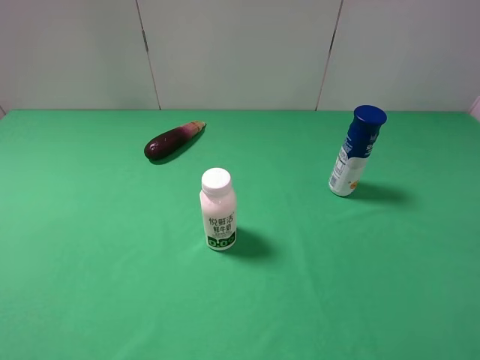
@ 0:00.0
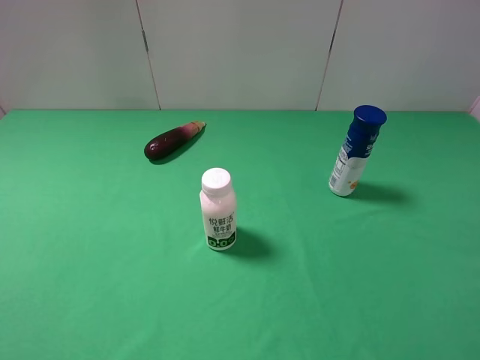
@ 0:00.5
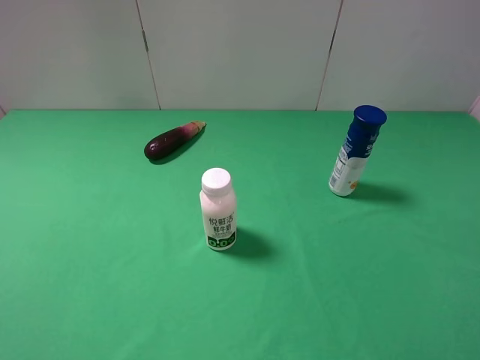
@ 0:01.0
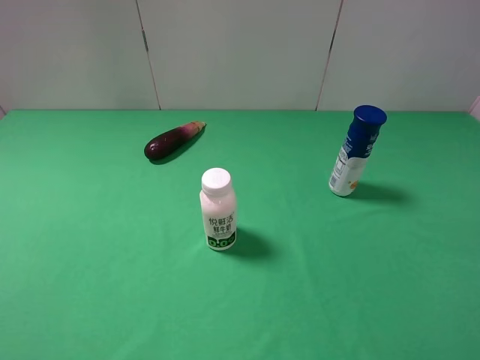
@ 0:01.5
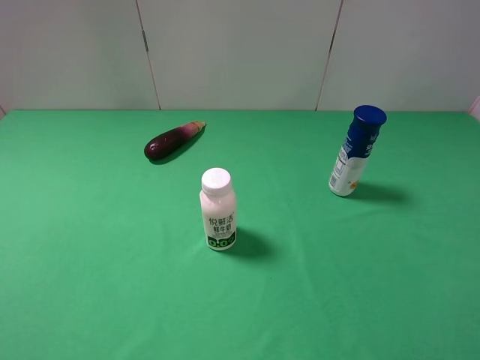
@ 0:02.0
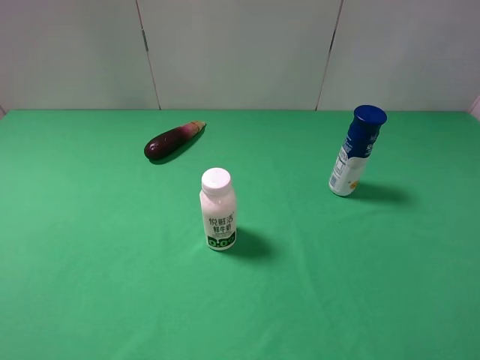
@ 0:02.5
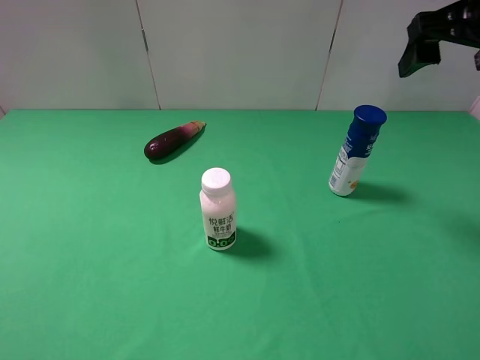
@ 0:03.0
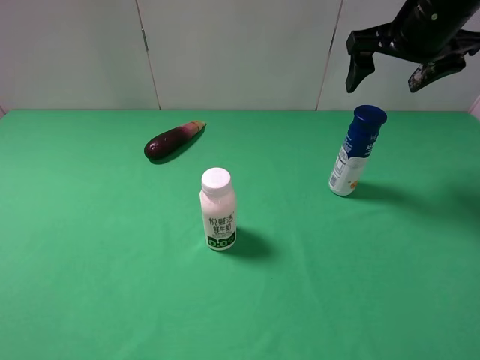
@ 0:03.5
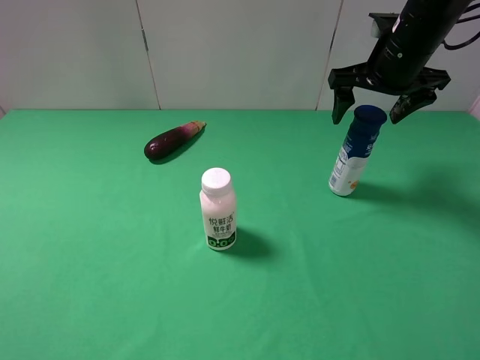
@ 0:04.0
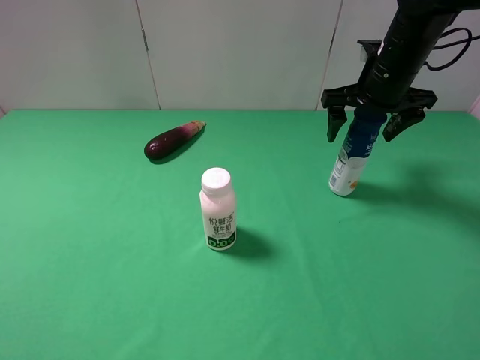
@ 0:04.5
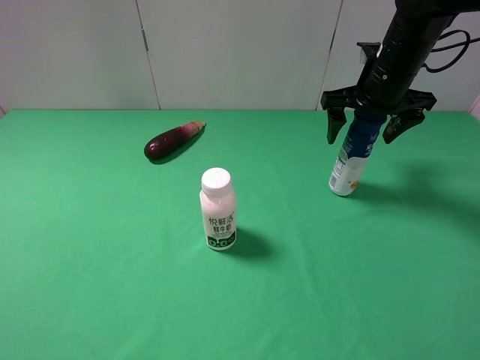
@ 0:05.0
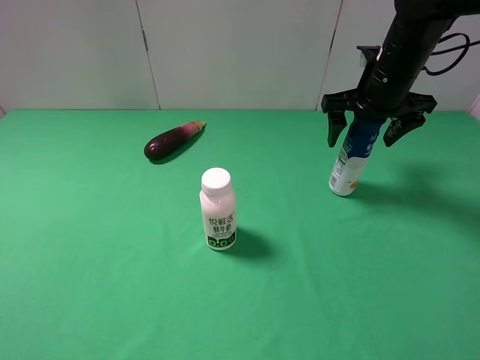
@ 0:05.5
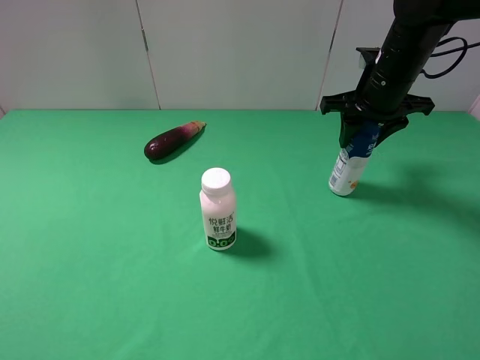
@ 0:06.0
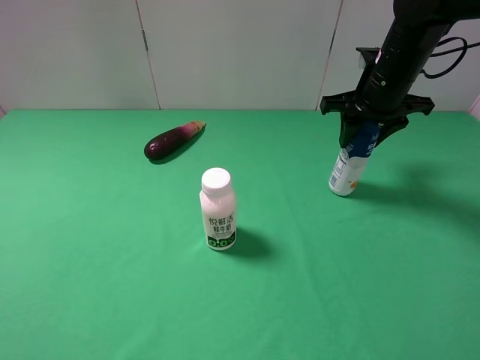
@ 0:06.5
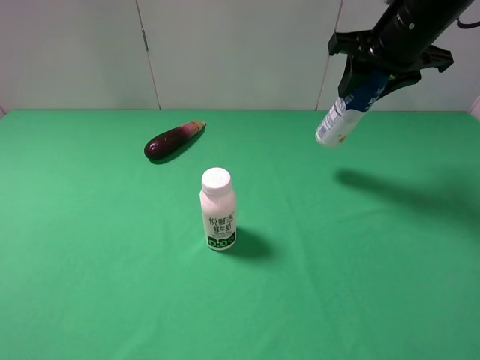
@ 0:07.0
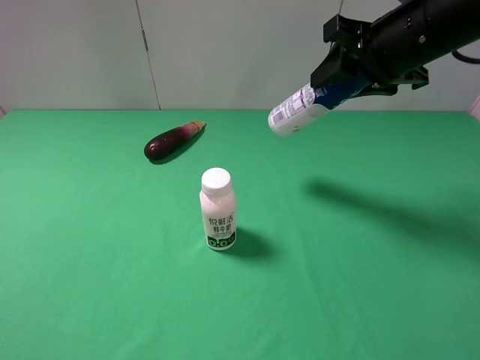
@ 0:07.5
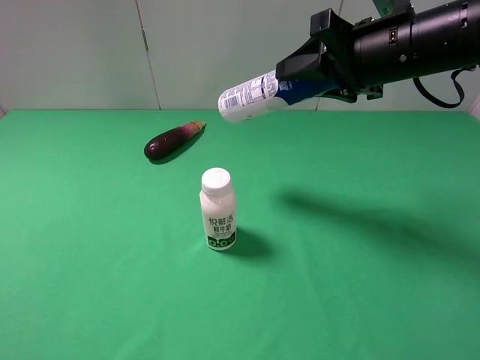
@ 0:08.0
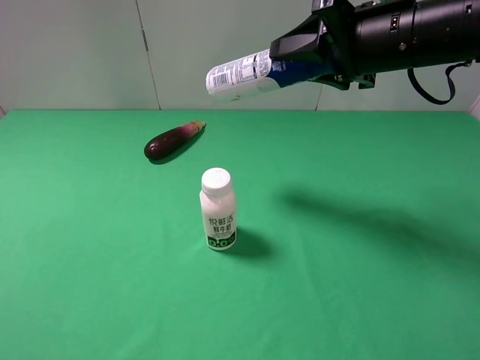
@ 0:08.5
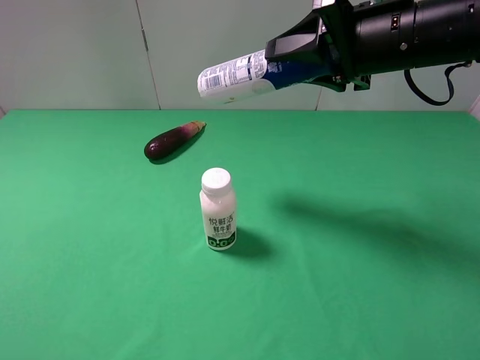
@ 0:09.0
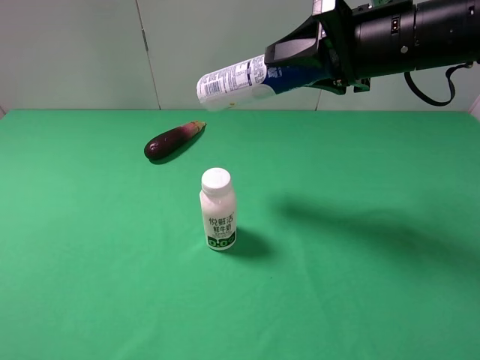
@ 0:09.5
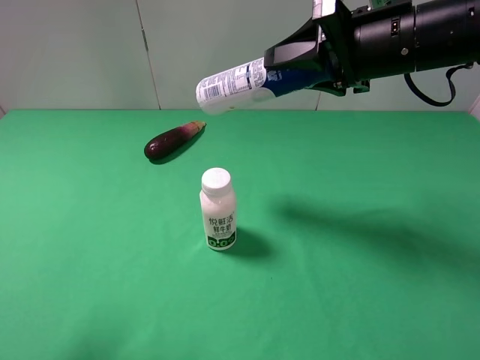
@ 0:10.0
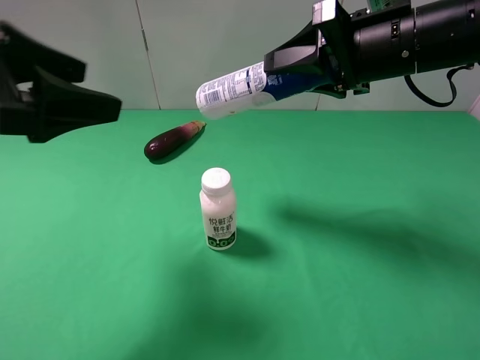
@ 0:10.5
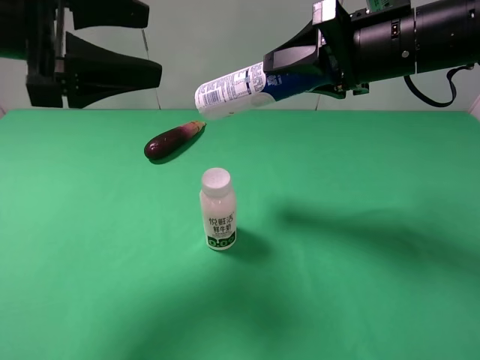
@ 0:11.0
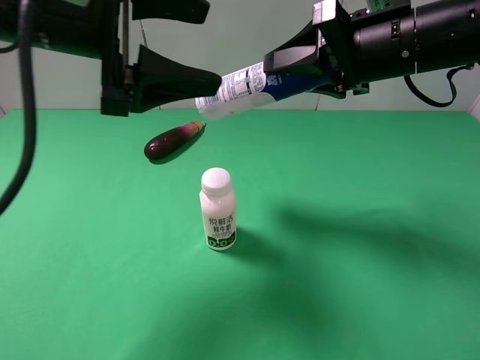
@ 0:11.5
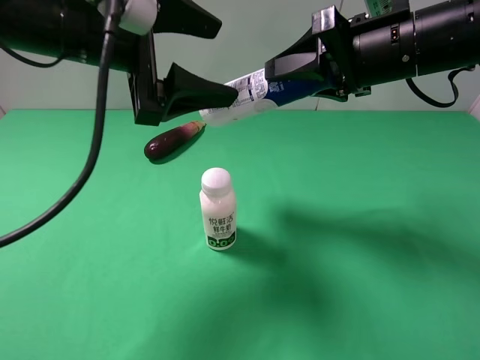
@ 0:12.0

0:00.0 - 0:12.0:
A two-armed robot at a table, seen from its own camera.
Task of the whole recording: use the right gripper to pick up the item and transfer it from the right gripper to the left gripper.
Step, 0:00.0 - 0:06.0: Use the right gripper to grab the yogurt on the right side of the table.
0:02.0 - 0:04.0: The right gripper is displaced forward by approximately 35 cm.
0:04.0 - 0:06.0: The right gripper closes up.
0:06.0 - 0:08.0: The right gripper travels backward and upward by roughly 10 cm.
0:08.0 - 0:10.0: The left gripper is displaced forward by roughly 10 cm.
0:10.0 - 0:12.0: The left gripper travels forward and to the right by approximately 25 cm.

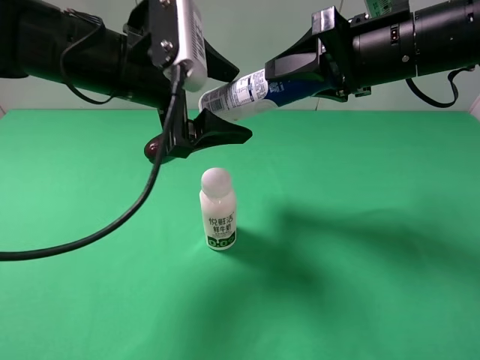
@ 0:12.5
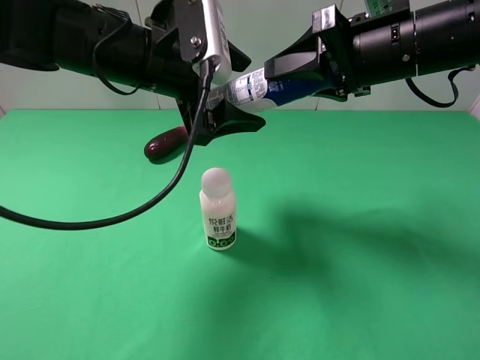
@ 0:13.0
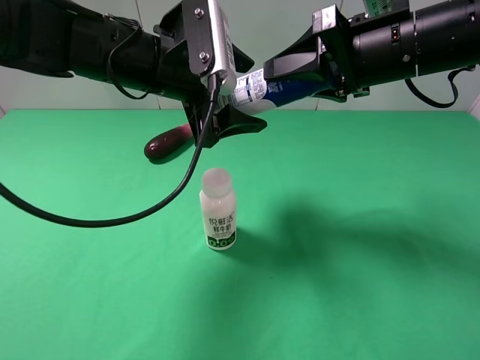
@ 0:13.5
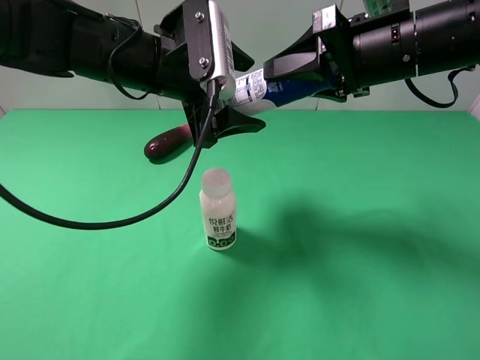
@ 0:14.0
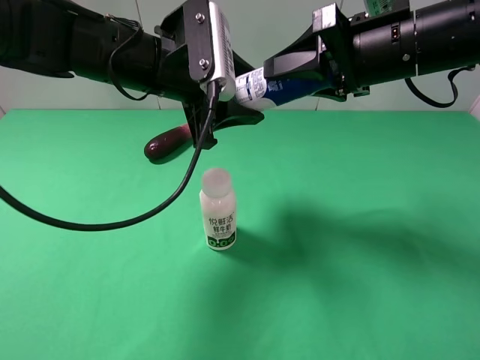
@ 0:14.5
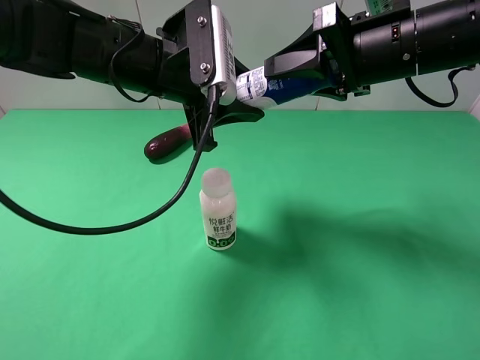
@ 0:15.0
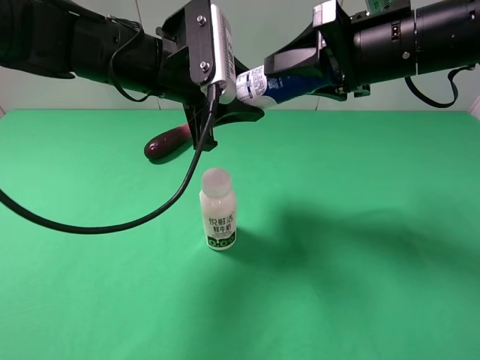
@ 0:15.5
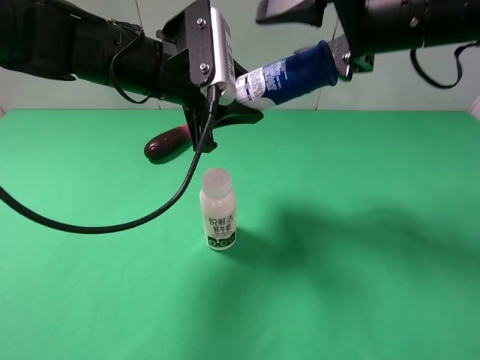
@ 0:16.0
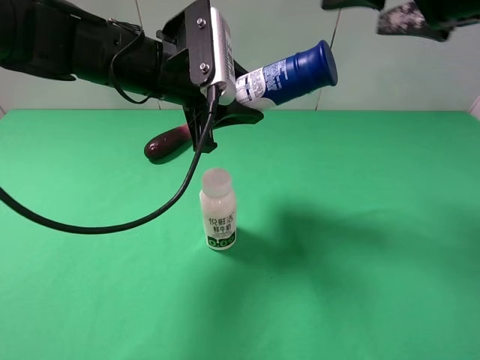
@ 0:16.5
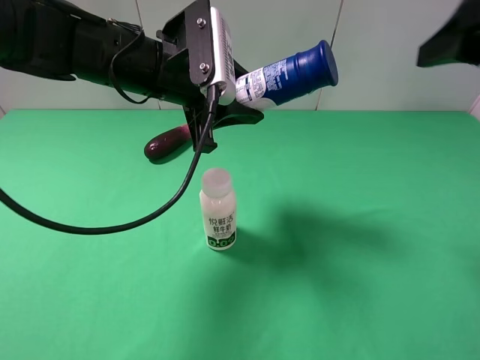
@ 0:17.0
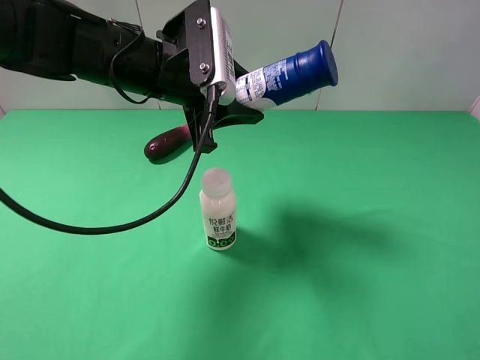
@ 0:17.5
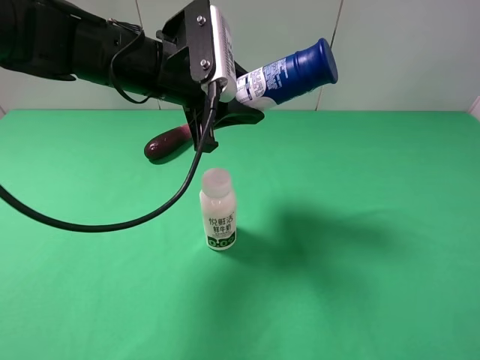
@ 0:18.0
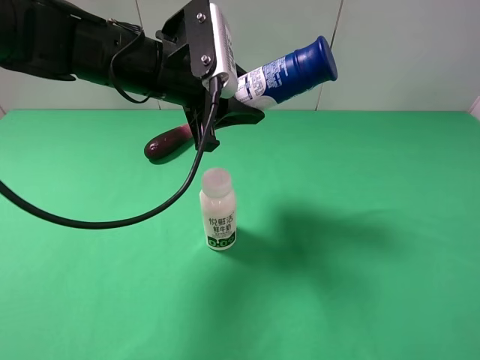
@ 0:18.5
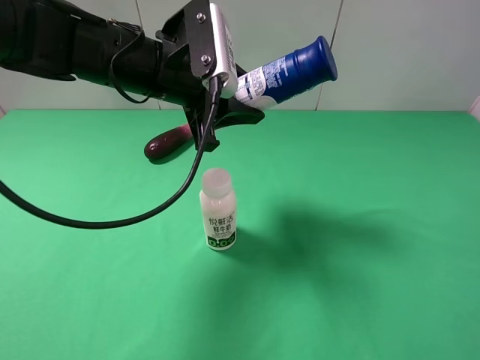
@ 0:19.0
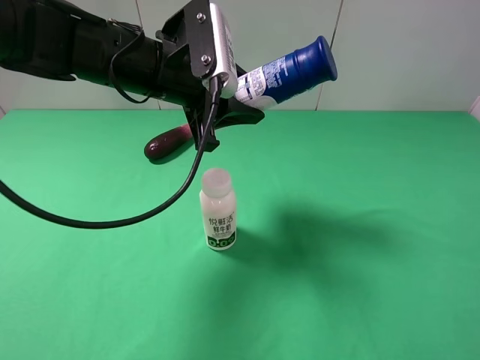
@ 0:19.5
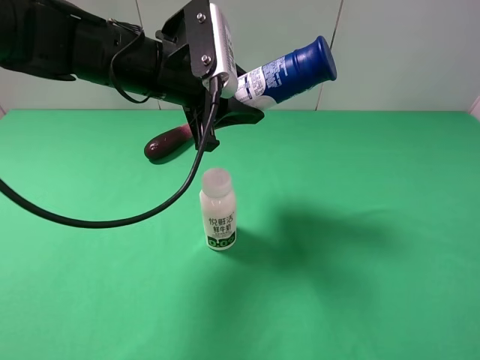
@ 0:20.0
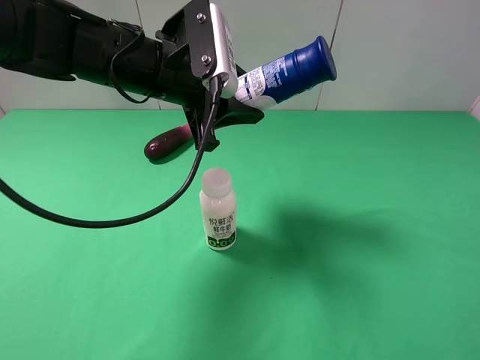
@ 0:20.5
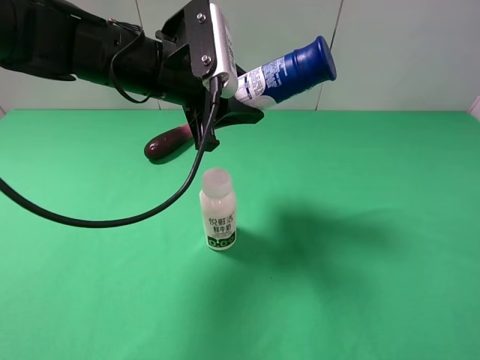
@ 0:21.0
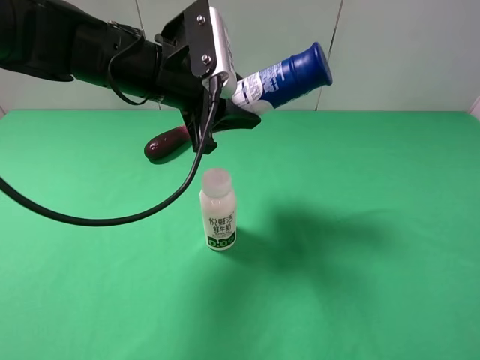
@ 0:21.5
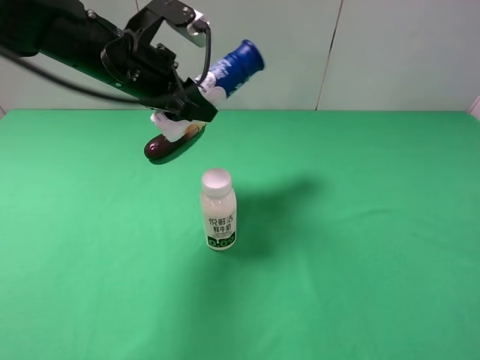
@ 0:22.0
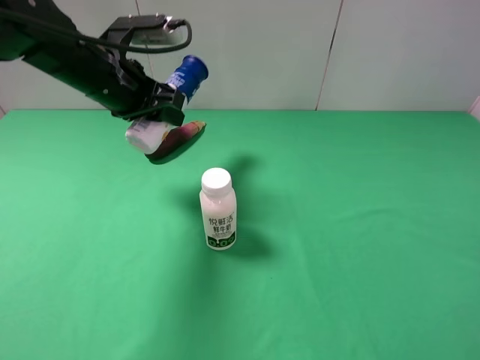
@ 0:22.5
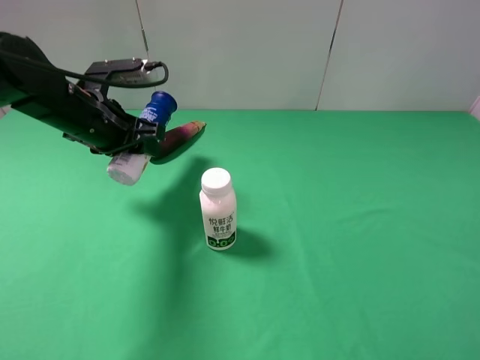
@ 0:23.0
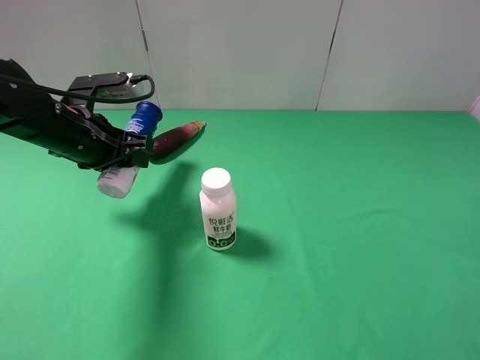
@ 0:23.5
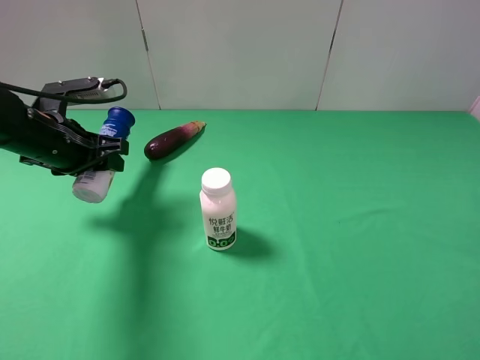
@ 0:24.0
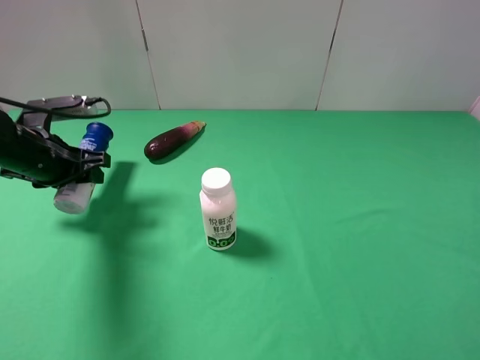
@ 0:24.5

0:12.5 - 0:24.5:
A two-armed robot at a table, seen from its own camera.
Task of the whole recording: use the right gripper to pick up the item and transfer it from the right gripper to the left gripper.
Step, 0:12.5 - 0:16.0: Pass the yogurt to the left gripper.
0:12.5 - 0:14.5: The left gripper closes its fingers.
0:14.5 - 0:16.5: The right gripper moves upward, about 5 cm, and opens.
0:16.5 - 0:18.5: The right gripper goes about 25 cm backward.
0:20.5 - 0:22.5: The left gripper goes about 5 cm to the left.
0:22.5 - 0:24.5: The left gripper heads to the left and downward, covering some 15 cm.

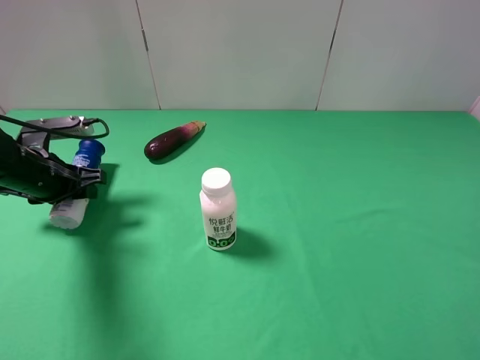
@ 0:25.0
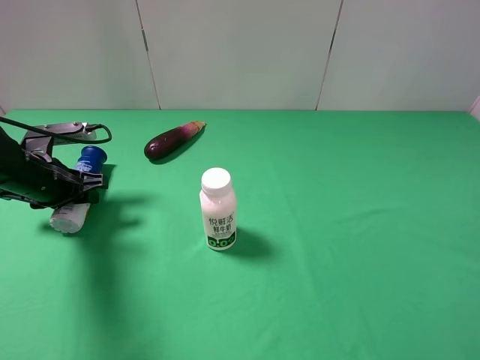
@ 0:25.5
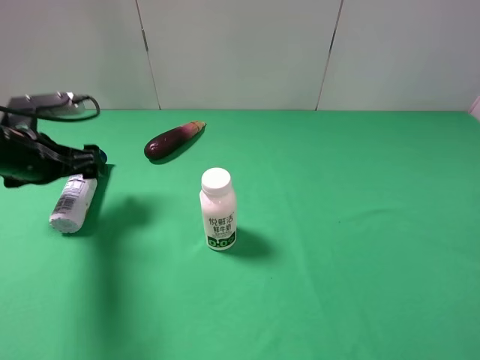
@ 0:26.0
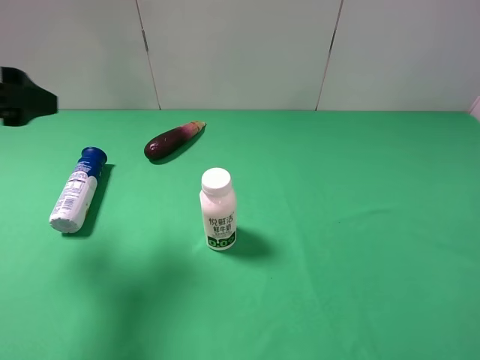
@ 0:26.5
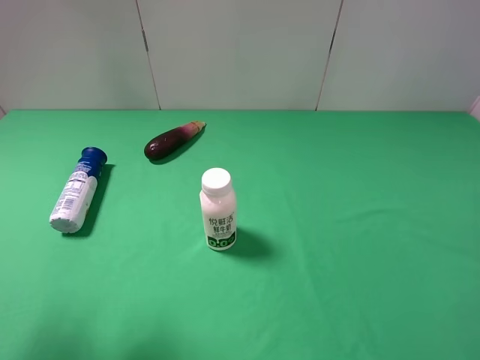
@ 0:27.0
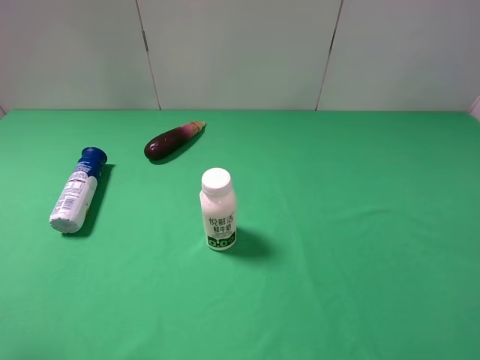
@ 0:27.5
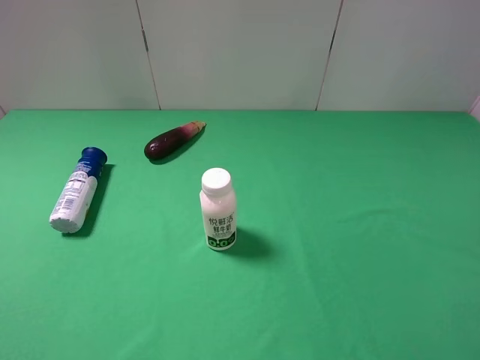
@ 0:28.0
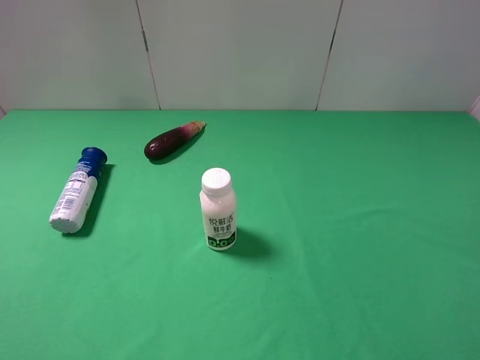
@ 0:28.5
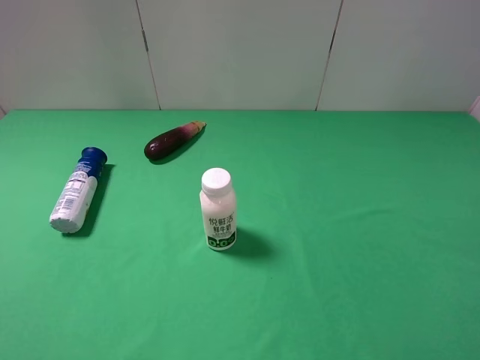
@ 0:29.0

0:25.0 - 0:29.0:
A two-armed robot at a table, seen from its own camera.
Task of the whole recording: use the right gripper to pick up the item and transfer it from the right gripper to the left gripper.
0:25.0 - 0:27.0: The left gripper moves upward and backward, approximately 30 cm, and opens up.
0:27.0 - 0:29.0: The left gripper goes roughly 10 cm backward.
